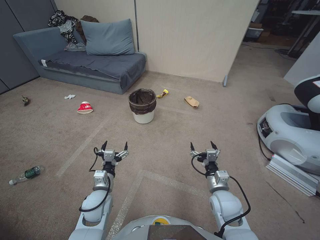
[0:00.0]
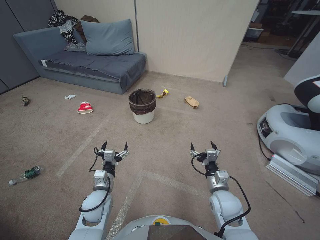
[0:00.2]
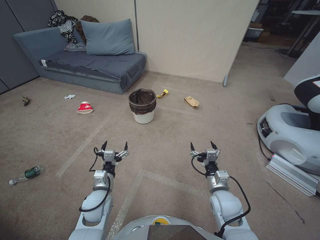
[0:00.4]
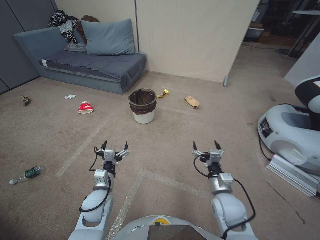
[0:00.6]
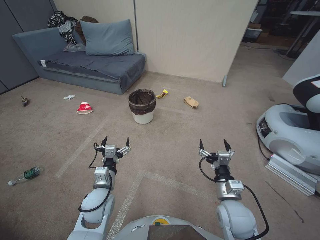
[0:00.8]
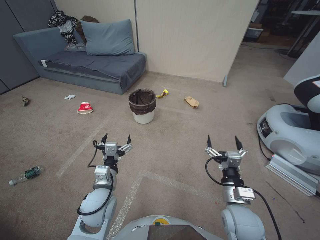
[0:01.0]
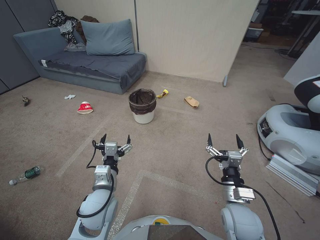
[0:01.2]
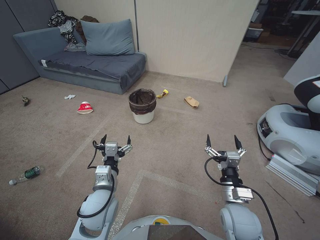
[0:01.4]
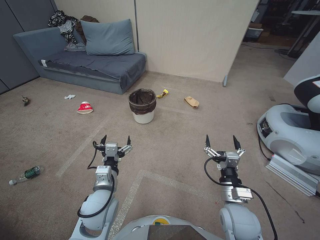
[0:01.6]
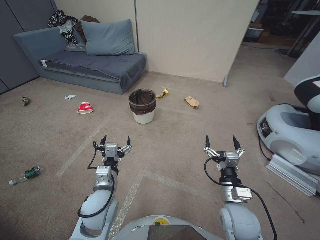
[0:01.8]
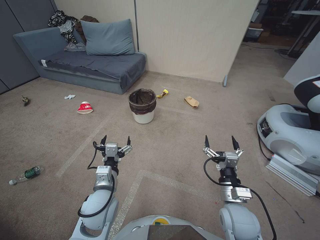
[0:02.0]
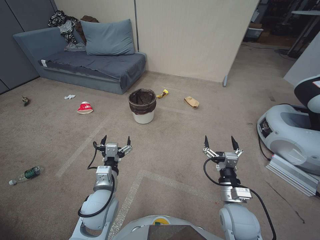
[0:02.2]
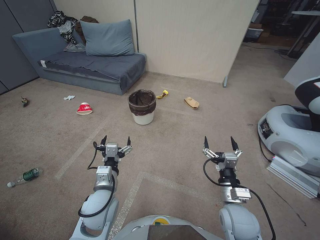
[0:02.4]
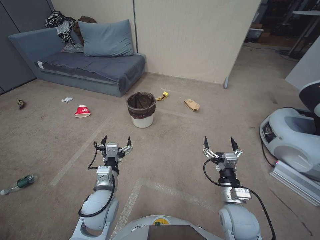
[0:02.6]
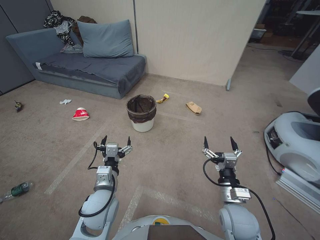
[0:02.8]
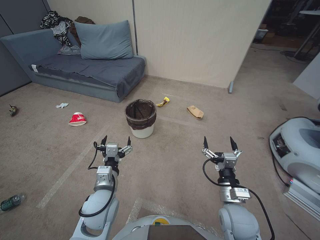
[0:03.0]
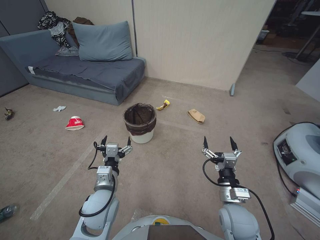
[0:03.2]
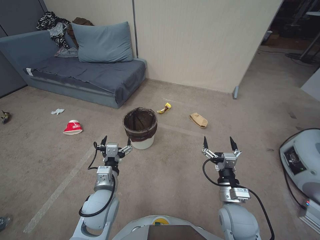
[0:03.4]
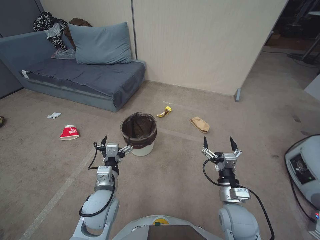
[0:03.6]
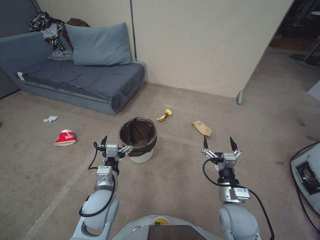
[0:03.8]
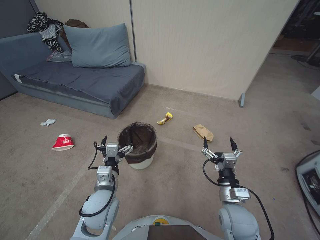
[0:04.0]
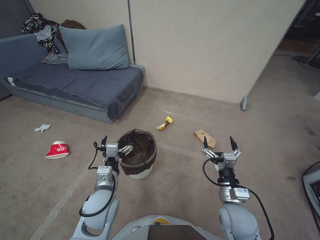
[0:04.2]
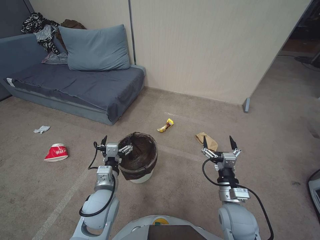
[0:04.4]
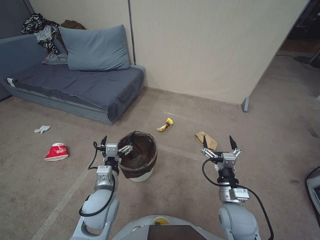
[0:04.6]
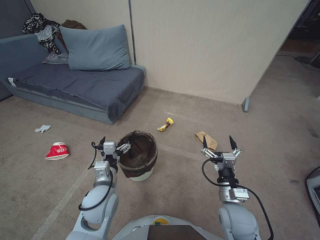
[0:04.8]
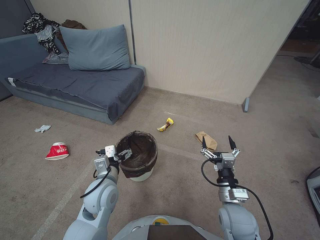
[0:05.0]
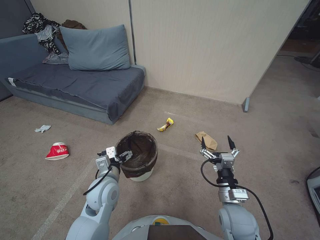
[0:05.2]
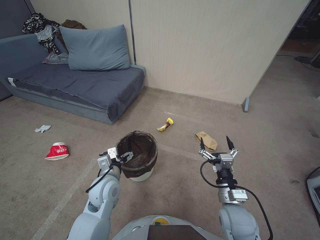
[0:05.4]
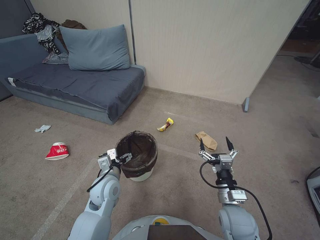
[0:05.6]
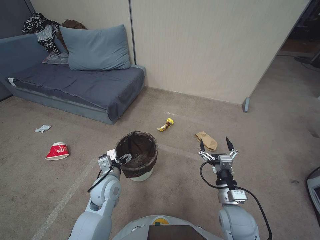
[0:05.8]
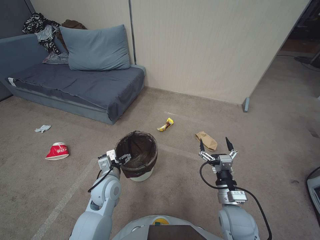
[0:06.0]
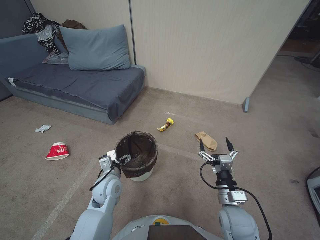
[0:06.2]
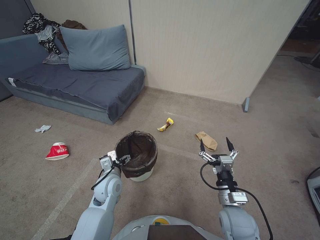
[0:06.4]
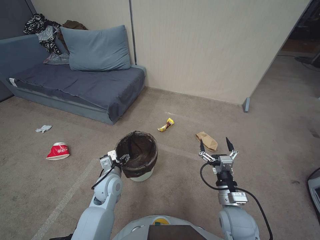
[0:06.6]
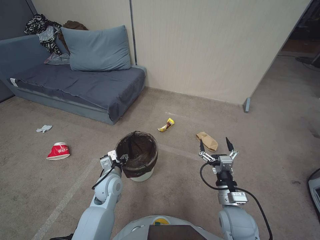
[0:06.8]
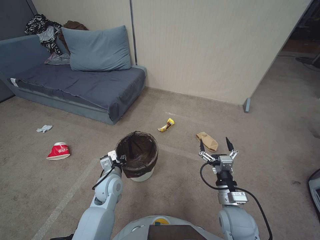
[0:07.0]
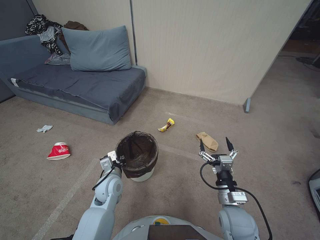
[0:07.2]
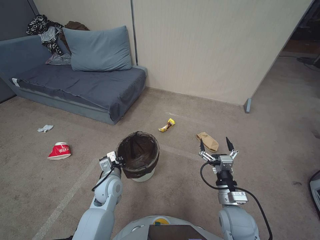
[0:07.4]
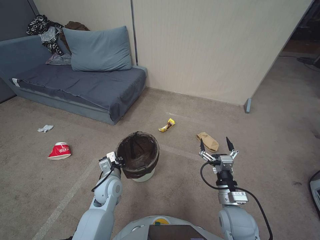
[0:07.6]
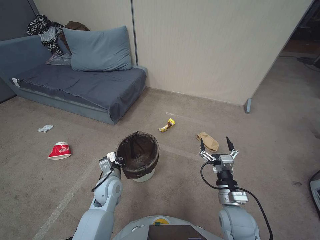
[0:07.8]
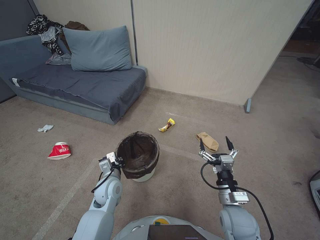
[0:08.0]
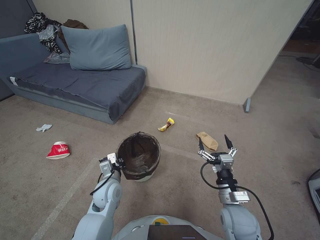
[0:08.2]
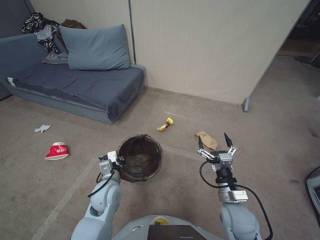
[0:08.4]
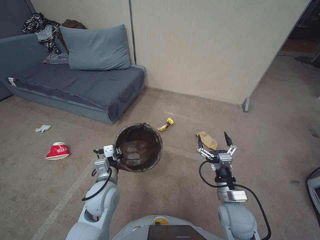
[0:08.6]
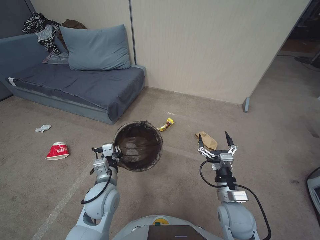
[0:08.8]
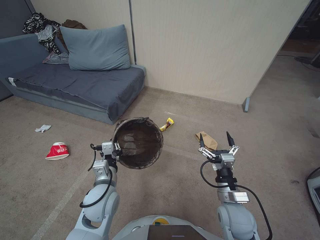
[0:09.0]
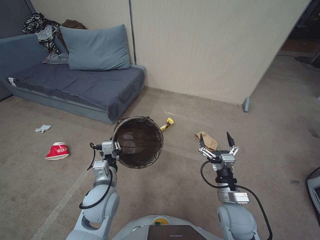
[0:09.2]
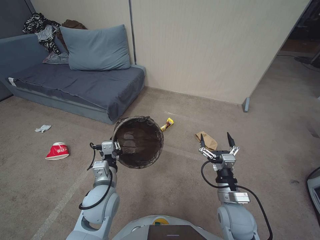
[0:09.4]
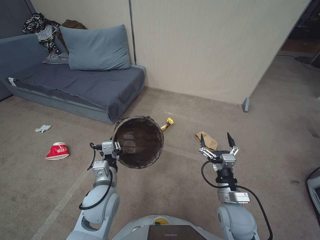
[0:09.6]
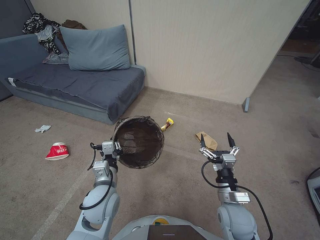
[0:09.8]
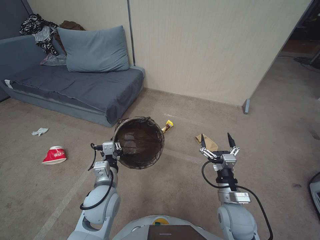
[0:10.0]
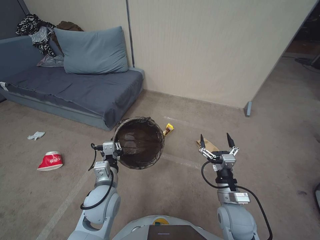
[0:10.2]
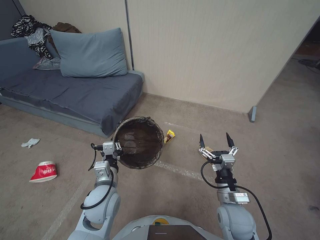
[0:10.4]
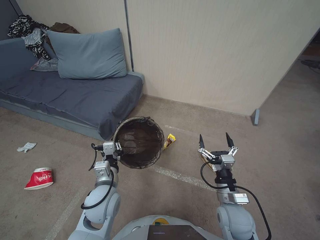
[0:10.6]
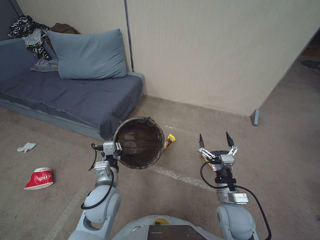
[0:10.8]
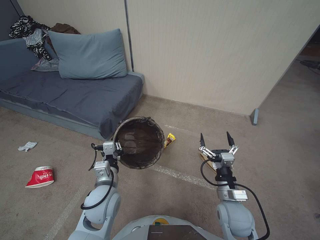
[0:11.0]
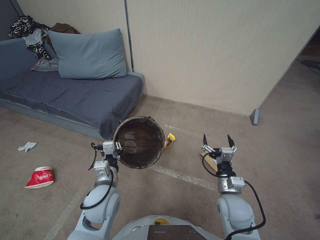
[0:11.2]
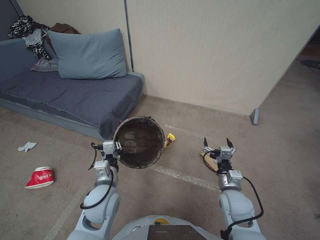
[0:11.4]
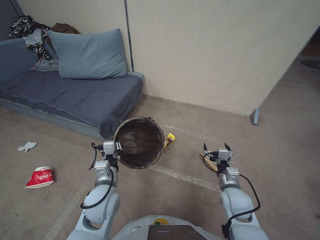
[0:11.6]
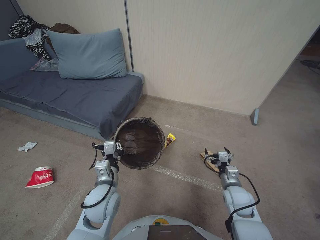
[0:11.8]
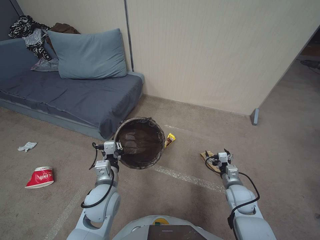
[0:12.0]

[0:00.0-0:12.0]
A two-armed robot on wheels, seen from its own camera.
Task of the whole recording: Pick up the trash bin, then pick up the garbage from the floor and place it into the trash bin.
0:01.6 to 0:03.0: The grippers move only a little.
0:04.4 to 0:06.0: The left gripper travels forward by about 5 cm.
0:06.0 to 0:07.6: The left gripper closes up.
0:07.6 to 0:09.0: The left gripper heads upward and backward, covering about 10 cm.
0:09.0 to 0:10.4: Neither gripper changes place.
0:10.4 to 0:12.0: The right gripper moves to the right, forward and downward, roughly 10 cm.

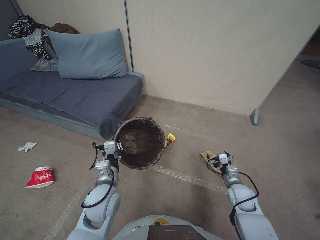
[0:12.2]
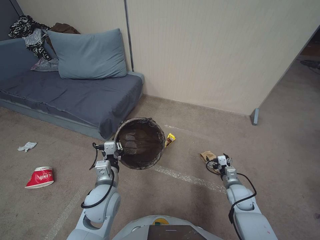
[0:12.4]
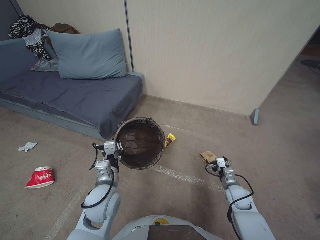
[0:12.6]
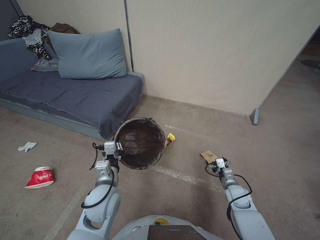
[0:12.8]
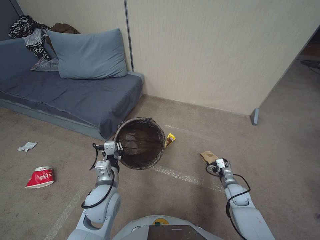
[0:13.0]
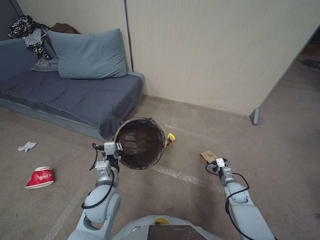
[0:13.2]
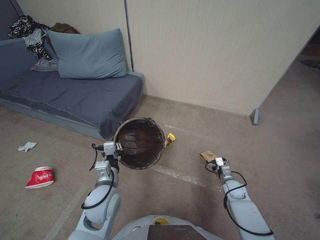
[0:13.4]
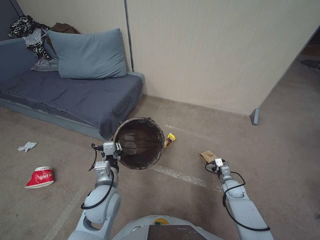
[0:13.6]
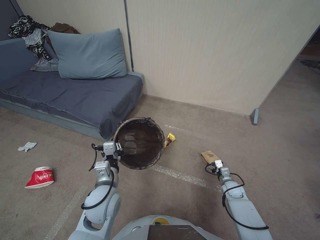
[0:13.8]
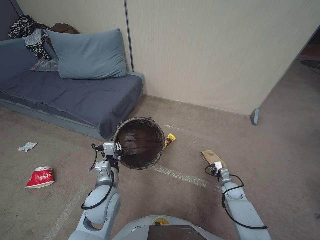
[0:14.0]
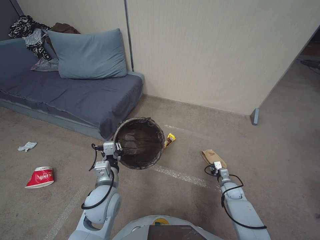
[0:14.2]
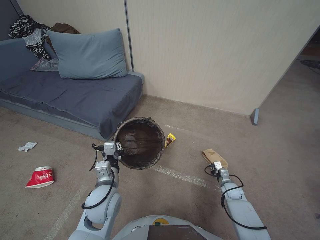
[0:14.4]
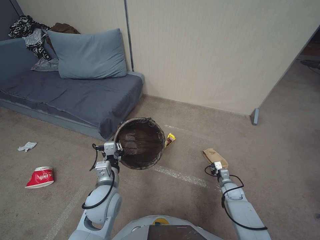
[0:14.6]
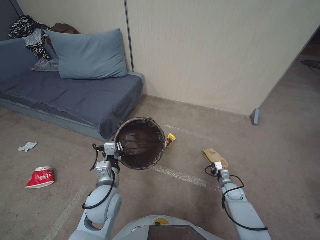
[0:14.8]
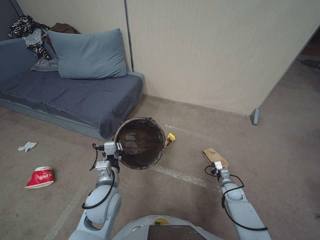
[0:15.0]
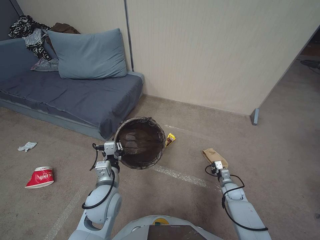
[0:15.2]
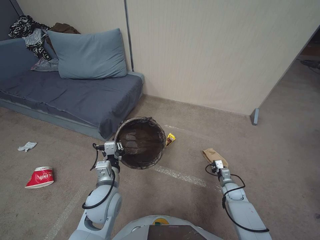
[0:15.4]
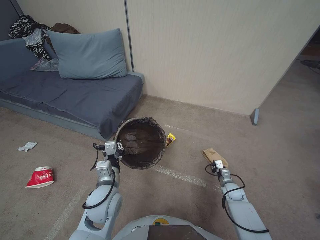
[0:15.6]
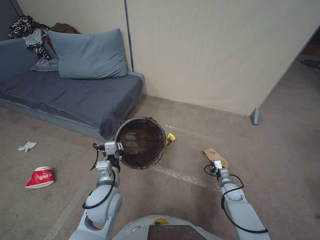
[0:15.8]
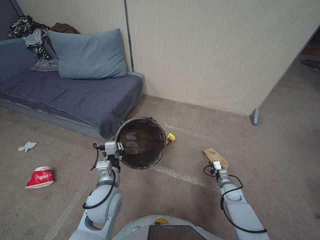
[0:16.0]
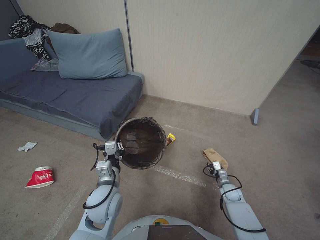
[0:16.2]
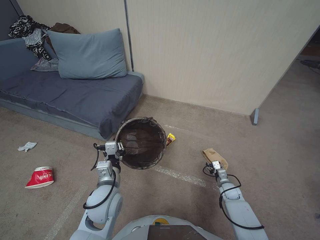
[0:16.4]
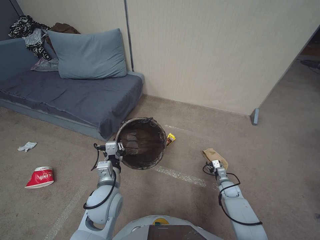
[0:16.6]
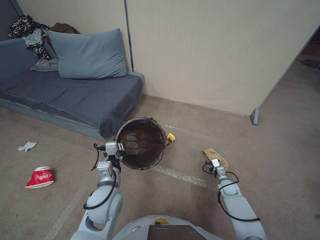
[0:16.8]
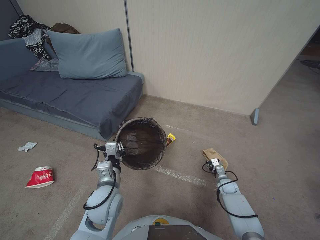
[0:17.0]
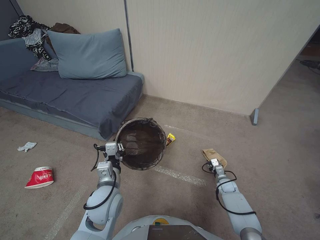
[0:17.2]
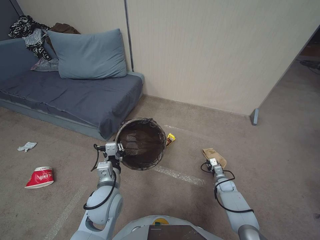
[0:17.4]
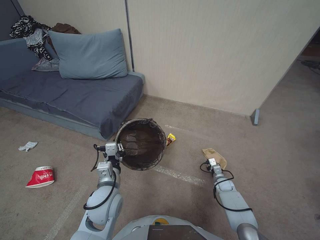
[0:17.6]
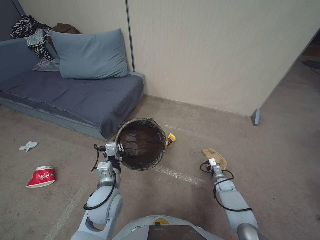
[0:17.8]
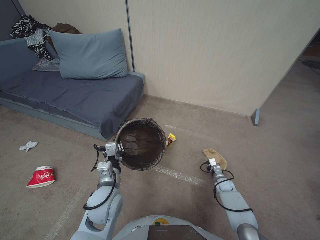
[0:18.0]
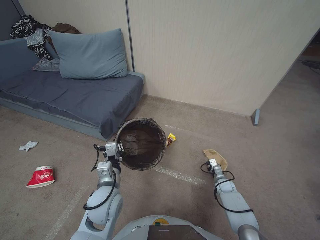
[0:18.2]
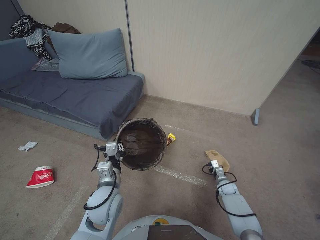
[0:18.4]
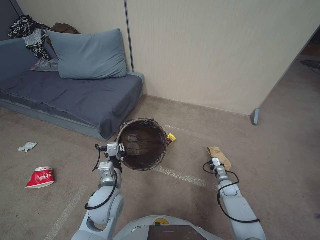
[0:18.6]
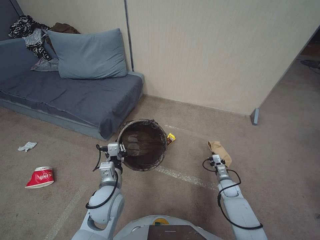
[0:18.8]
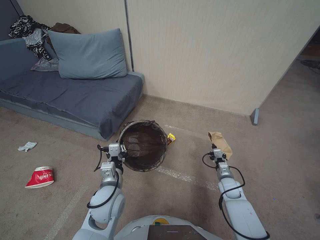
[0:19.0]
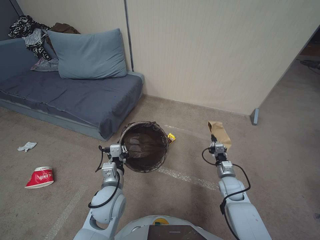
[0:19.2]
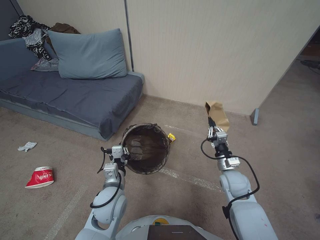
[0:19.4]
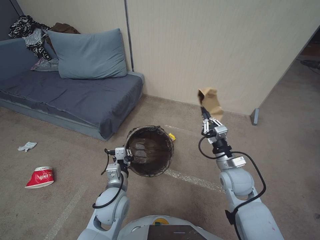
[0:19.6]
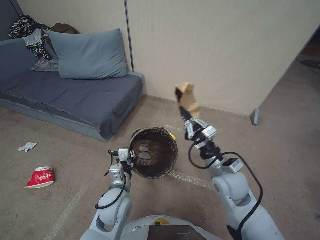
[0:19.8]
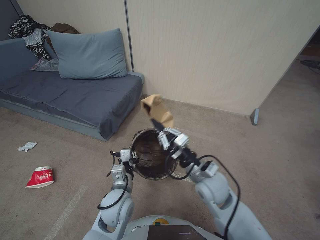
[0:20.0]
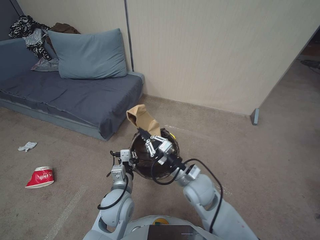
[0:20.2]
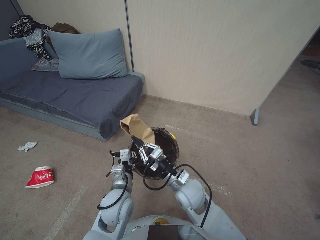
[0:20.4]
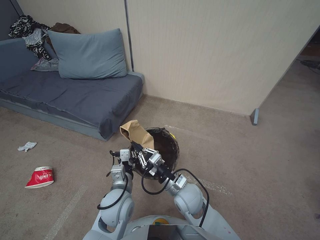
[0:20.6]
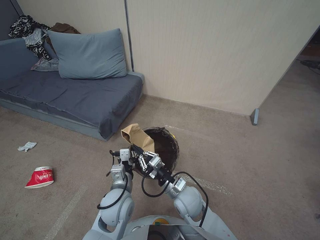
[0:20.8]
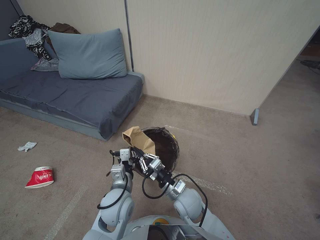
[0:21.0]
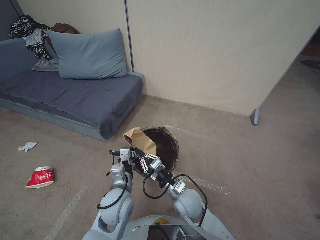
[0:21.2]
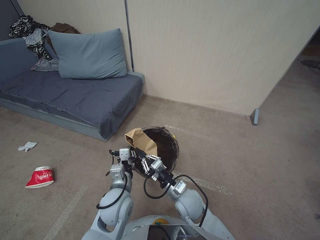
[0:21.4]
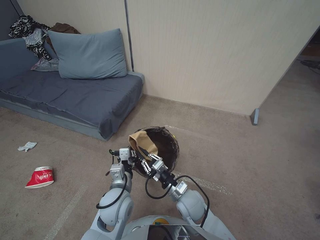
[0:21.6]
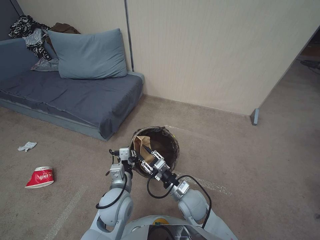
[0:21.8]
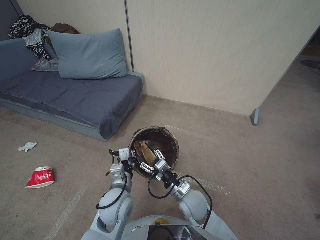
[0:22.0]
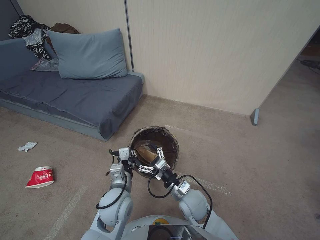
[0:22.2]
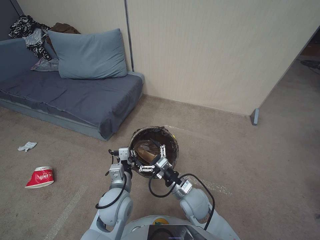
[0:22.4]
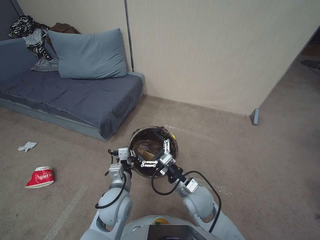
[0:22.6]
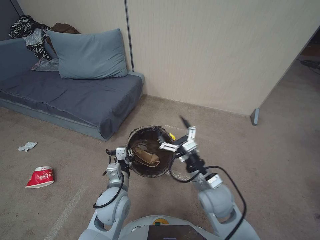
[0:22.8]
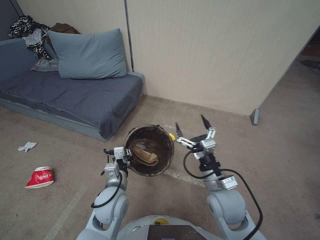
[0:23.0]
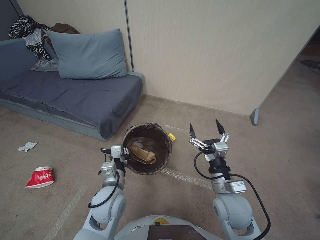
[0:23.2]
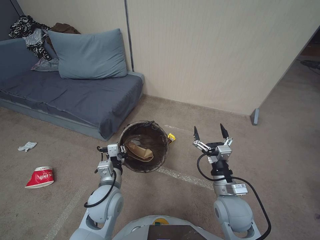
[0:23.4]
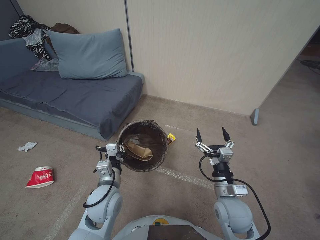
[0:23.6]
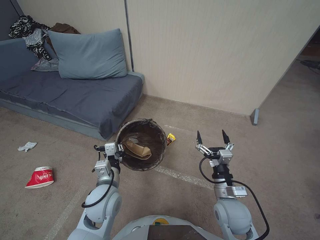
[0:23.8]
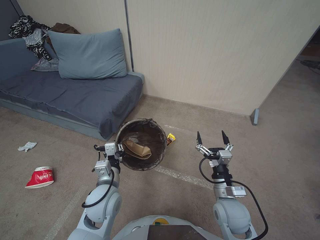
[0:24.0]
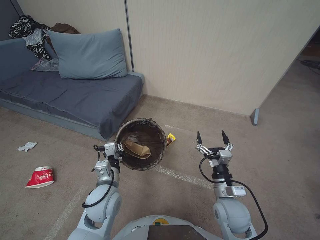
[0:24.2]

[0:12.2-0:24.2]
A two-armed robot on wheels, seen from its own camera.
Task of the whole recording: Pick up the trash bin, then pick up the garbage from the floor and place it into the trash bin.
0:12.2 to 0:13.8: The right gripper is displaced downward and forward by roughly 15 cm.
0:13.8 to 0:15.2: The right gripper closes its fingers.
0:15.2 to 0:16.6: The right gripper opens up.
0:16.6 to 0:18.2: The right gripper closes.
0:18.2 to 0:19.8: The right gripper is displaced upward and to the left by about 35 cm.
0:19.8 to 0:21.2: The right gripper heads to the left and downward, covering some 15 cm.
0:21.2 to 0:22.6: The right gripper opens its fingers.
0:22.6 to 0:24.2: The right gripper travels to the right and upward by roughly 10 cm.
